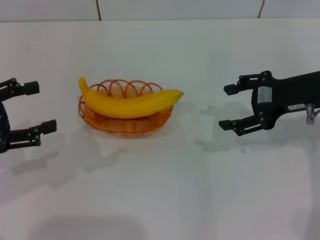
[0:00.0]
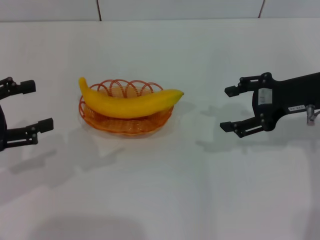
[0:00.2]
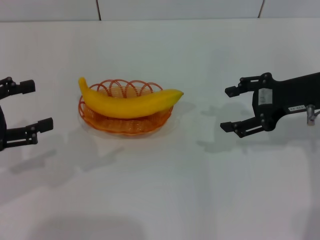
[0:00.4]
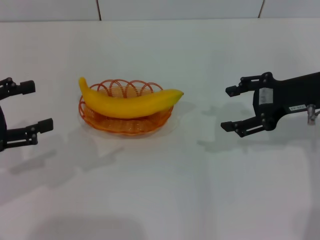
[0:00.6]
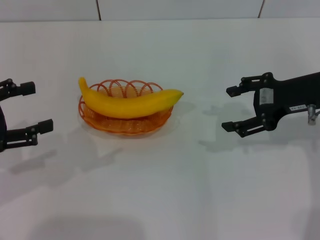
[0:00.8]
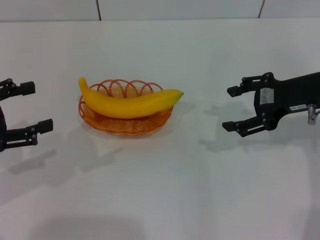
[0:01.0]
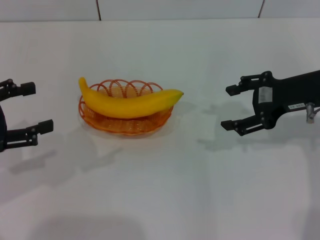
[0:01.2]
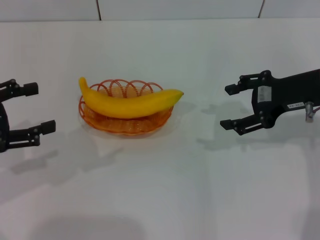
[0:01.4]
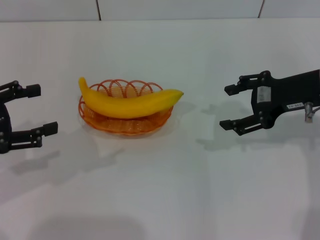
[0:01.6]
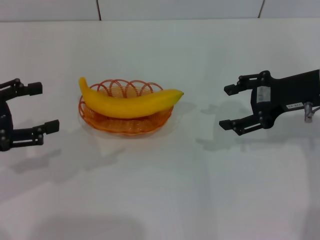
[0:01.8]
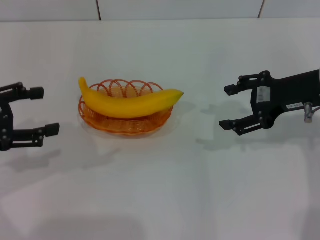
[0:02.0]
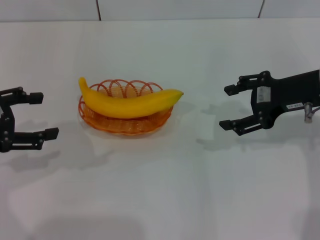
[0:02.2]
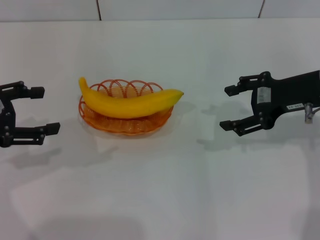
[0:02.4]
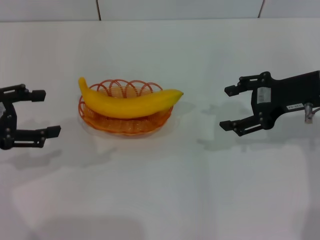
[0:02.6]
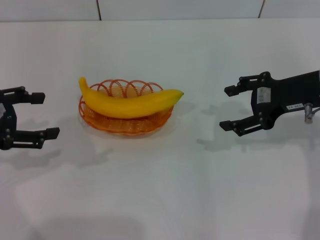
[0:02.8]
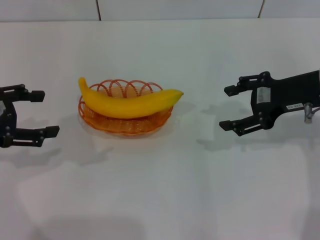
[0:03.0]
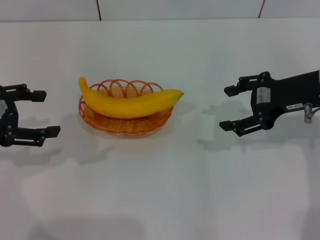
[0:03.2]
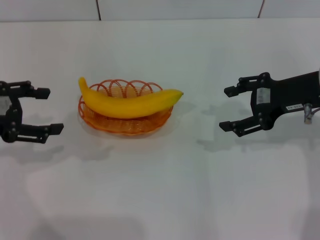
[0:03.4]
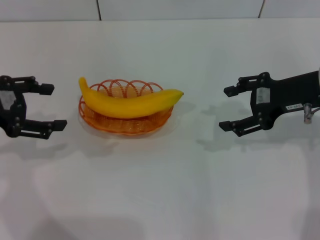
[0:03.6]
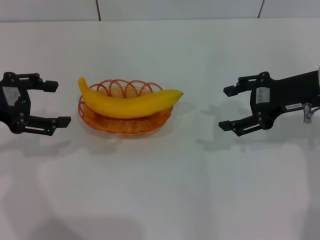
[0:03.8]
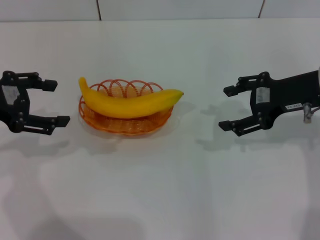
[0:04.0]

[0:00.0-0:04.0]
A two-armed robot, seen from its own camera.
0:00.0 to 0:01.4: Both grippers stay put.
0:01.4 to 0:02.6: The grippers make only small movements.
0:02.6 to 0:04.0: The grippers stay close to where they were, moving slightly.

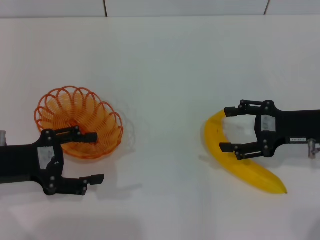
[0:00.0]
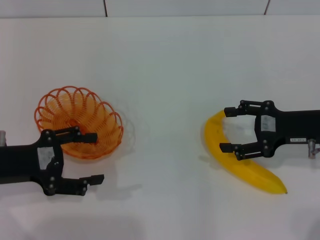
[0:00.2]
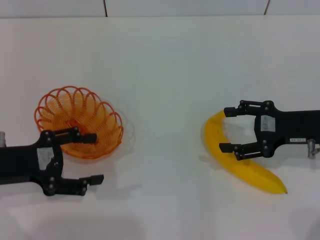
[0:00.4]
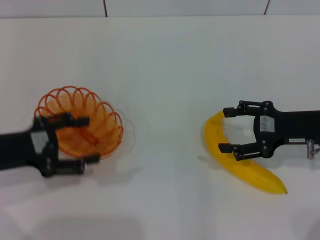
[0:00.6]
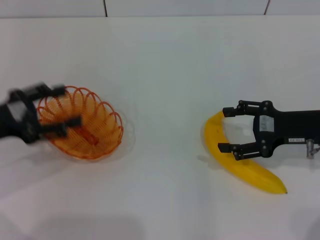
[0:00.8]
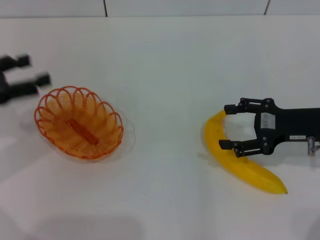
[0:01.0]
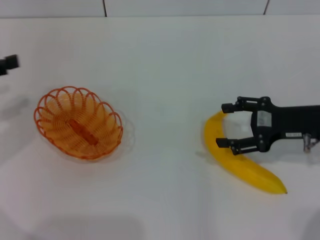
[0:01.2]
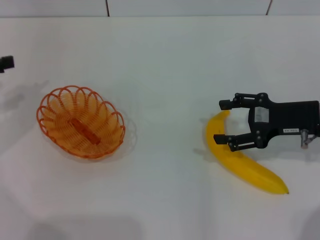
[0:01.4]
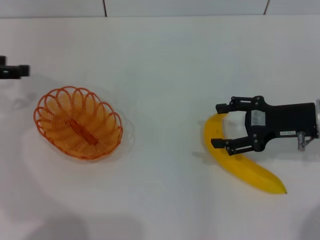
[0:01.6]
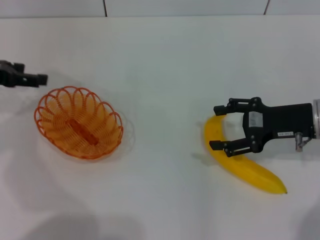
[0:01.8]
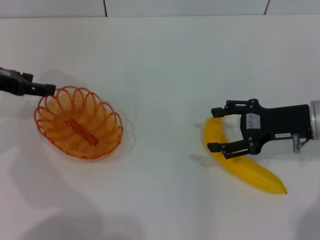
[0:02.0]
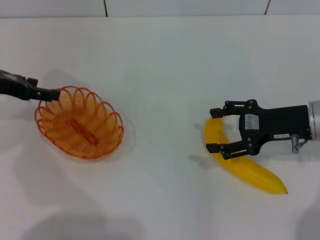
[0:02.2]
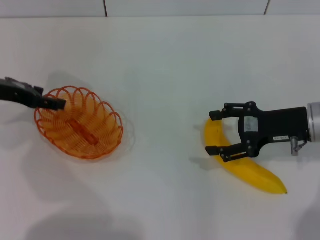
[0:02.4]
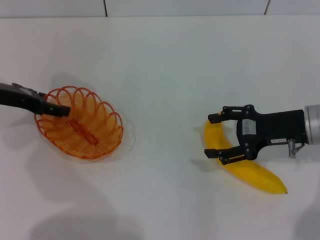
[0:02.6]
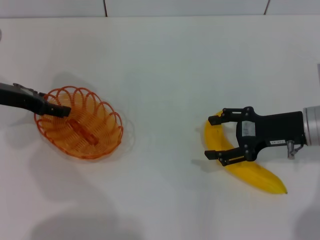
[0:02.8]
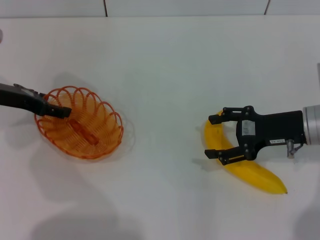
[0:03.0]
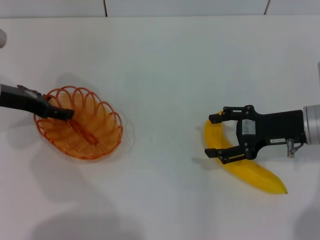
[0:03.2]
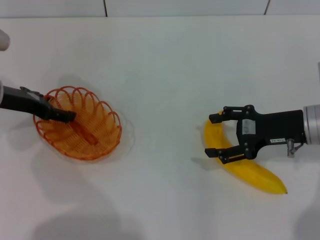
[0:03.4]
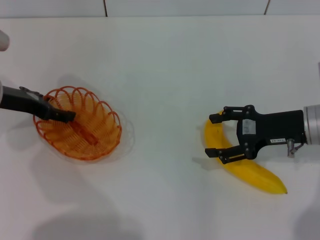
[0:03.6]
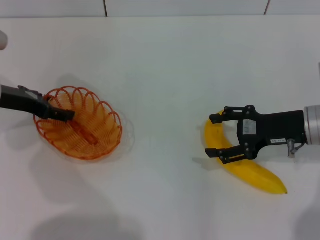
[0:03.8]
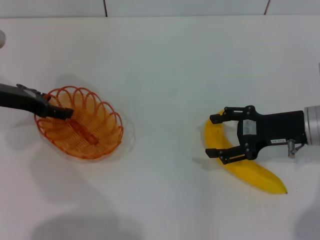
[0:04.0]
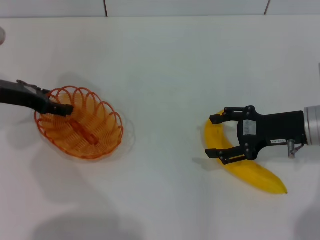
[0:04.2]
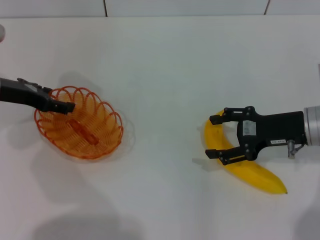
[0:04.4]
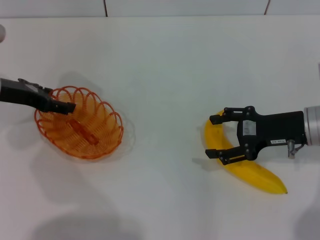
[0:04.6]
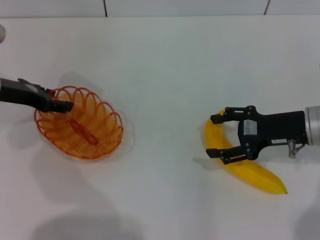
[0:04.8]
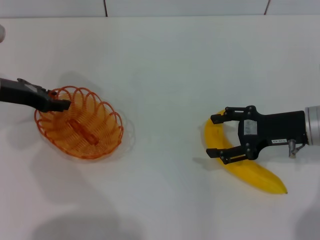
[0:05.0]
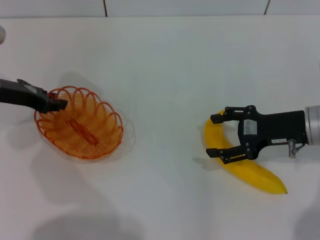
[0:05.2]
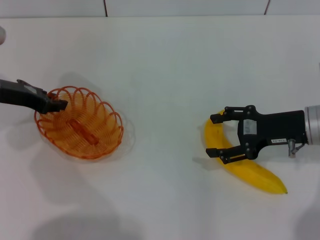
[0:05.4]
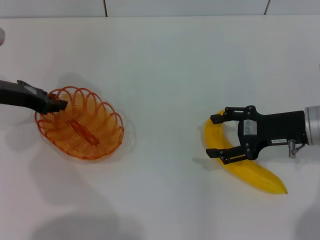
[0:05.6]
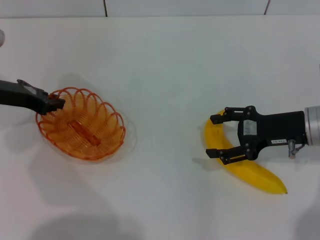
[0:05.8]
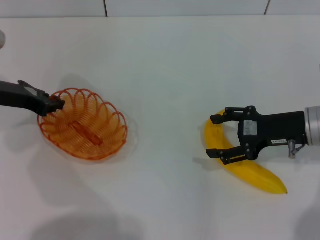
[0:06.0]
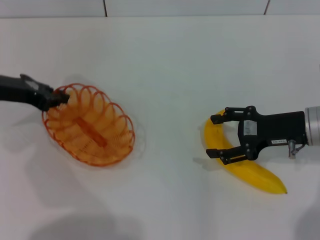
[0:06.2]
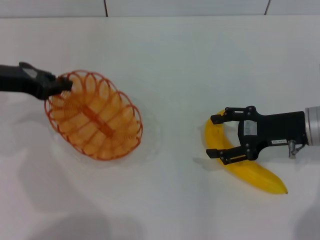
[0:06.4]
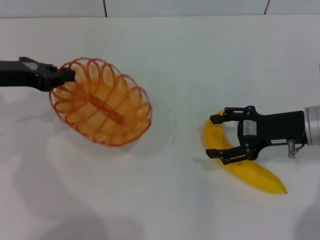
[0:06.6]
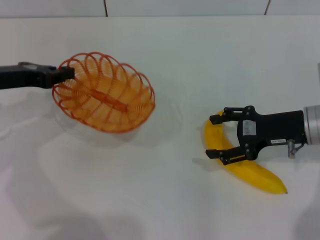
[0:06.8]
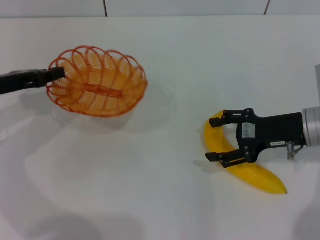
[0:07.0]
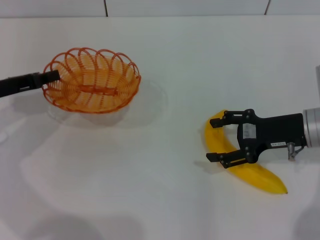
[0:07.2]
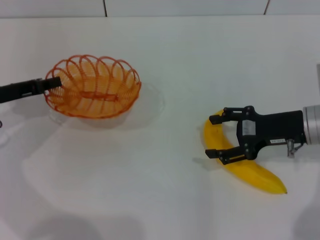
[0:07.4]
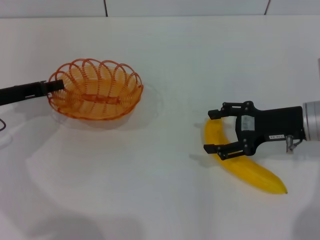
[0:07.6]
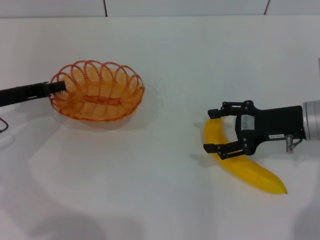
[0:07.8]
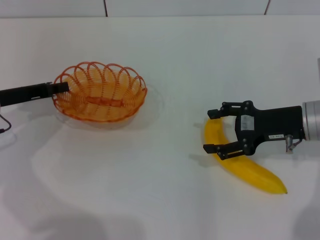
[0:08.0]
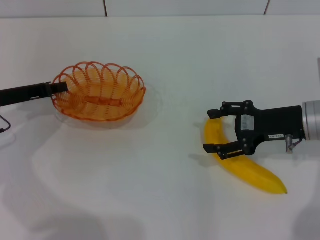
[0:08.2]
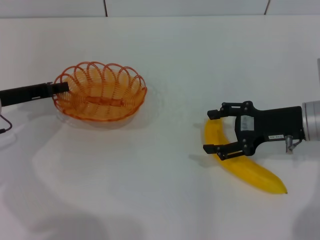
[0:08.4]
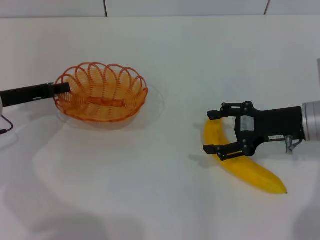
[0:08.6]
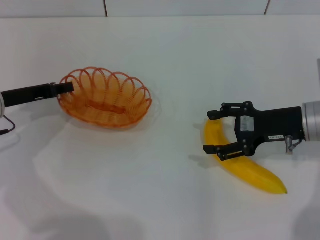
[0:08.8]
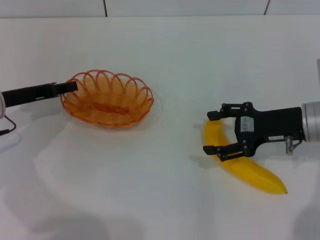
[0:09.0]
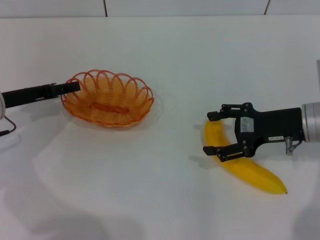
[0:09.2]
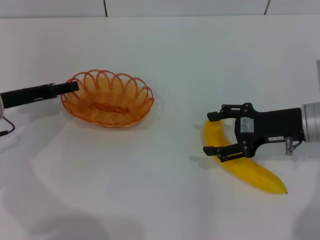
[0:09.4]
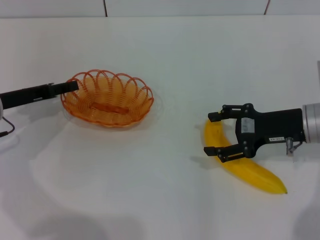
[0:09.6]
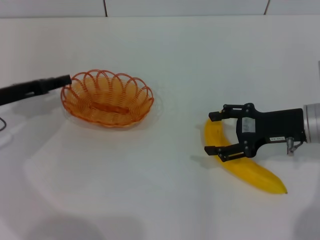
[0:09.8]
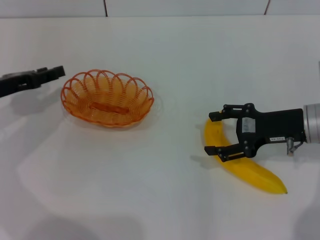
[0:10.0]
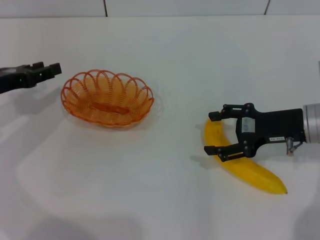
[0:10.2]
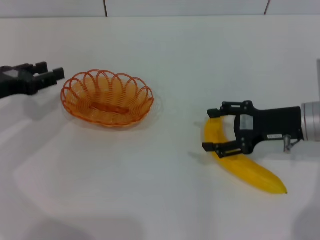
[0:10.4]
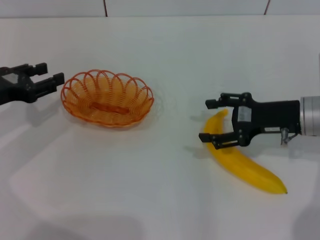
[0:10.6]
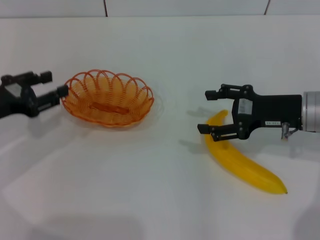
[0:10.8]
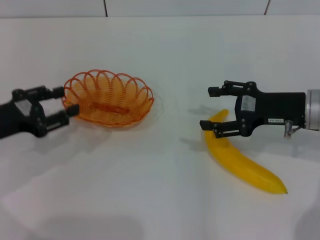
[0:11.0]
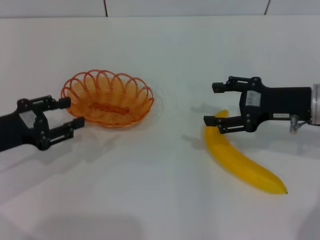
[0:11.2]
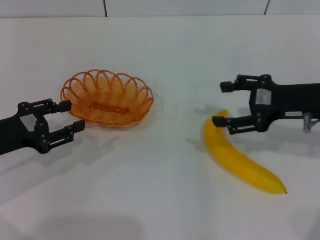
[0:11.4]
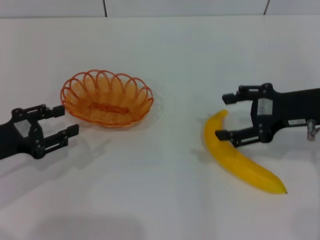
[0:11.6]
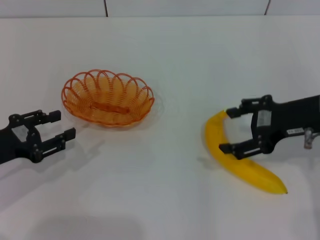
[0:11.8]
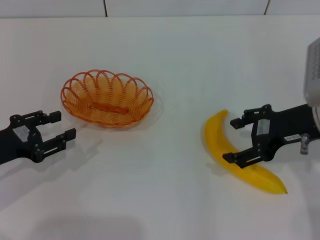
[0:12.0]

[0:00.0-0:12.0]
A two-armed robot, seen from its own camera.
Step, 0:00.0 to 0:07.0: Pick up the basket with the left gripper.
Step, 0:07.2 to 0:10.2: Place the basket in the center of view with the left gripper.
0:00.0 to 0:01.6: The left gripper goes about 15 cm forward, upward and to the left.
0:01.6 to 0:03.0: The left gripper shifts approximately 5 cm to the right.
0:03.0 to 0:04.4: Both grippers stay about where they are.
0:04.4 to 0:06.0: The left gripper closes.
0:07.6 to 0:09.0: There are only small adjustments of the grippers.
0:09.0 to 0:10.4: The left gripper opens.
0:10.4 to 0:12.0: The left gripper is displaced backward by roughly 5 cm. The right gripper goes roughly 5 cm upward.

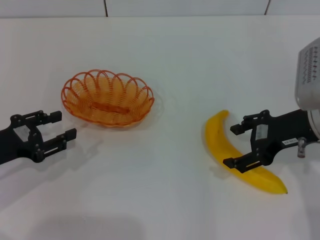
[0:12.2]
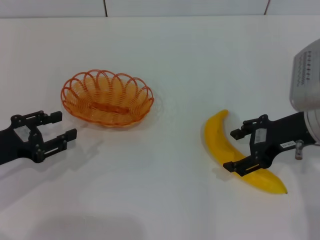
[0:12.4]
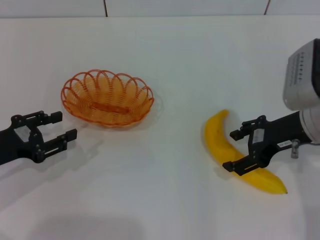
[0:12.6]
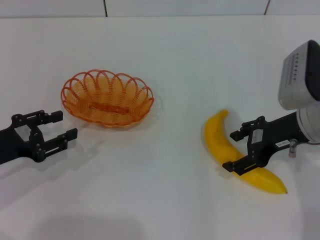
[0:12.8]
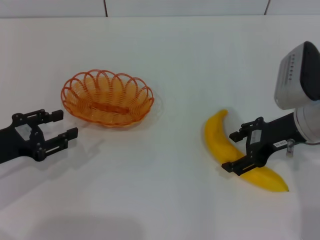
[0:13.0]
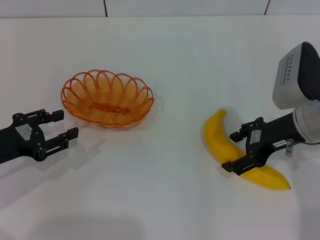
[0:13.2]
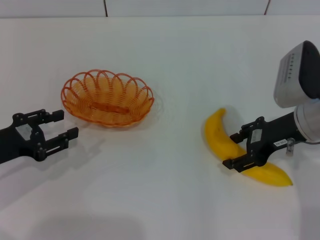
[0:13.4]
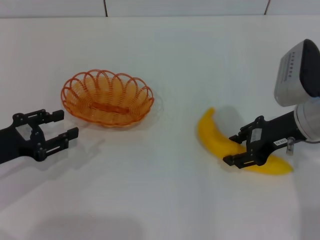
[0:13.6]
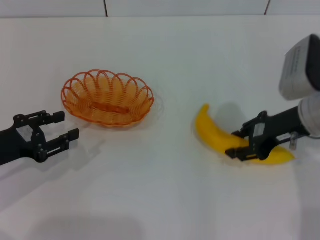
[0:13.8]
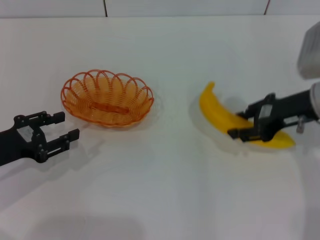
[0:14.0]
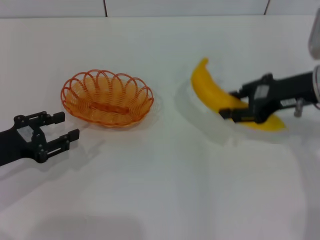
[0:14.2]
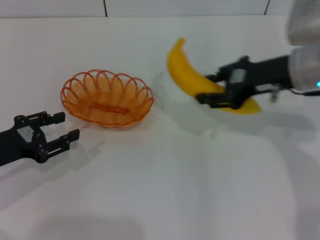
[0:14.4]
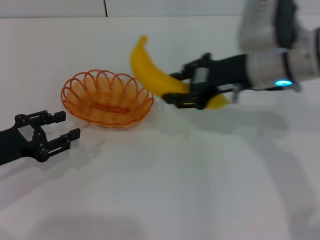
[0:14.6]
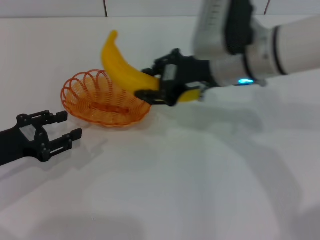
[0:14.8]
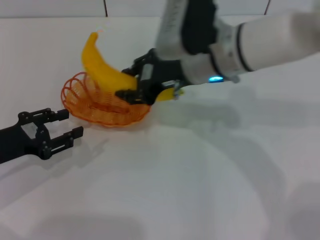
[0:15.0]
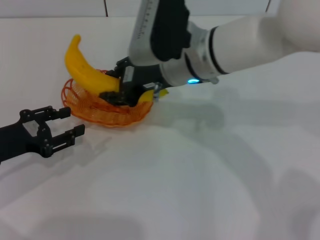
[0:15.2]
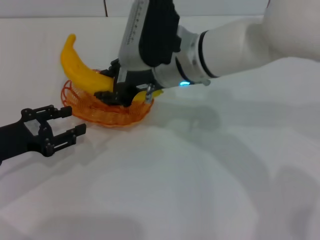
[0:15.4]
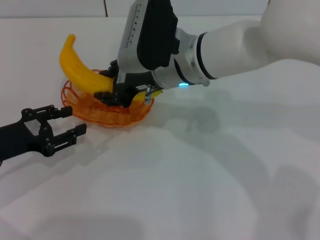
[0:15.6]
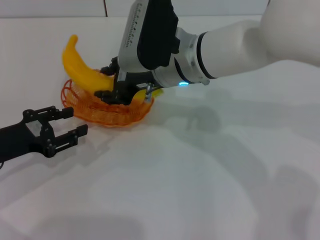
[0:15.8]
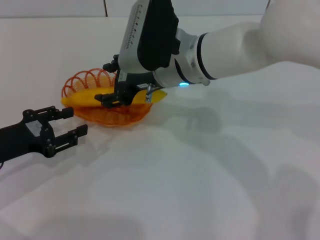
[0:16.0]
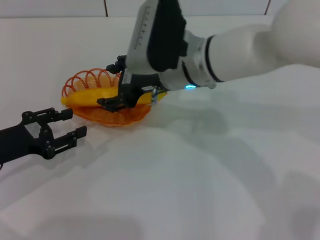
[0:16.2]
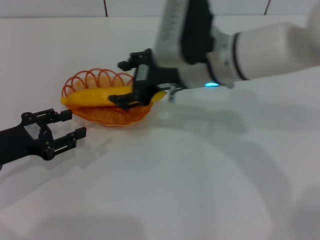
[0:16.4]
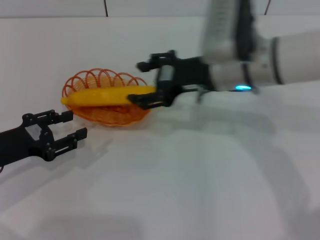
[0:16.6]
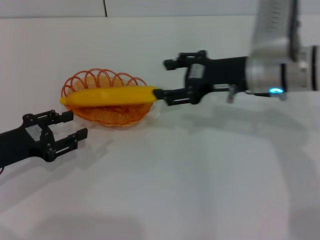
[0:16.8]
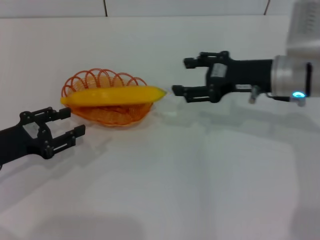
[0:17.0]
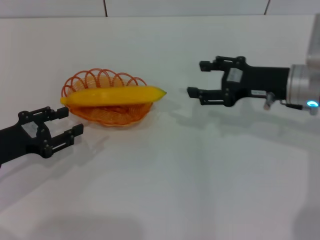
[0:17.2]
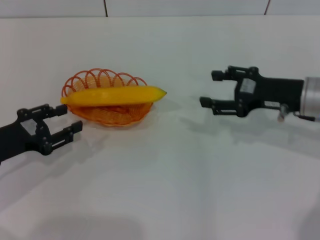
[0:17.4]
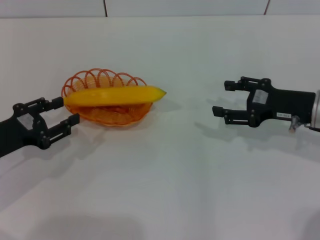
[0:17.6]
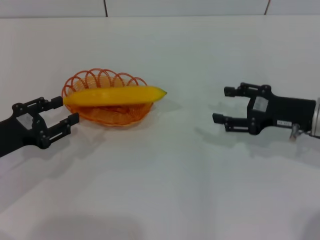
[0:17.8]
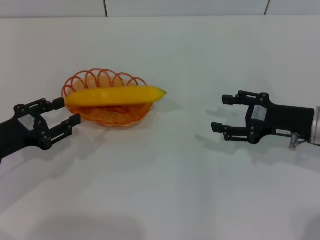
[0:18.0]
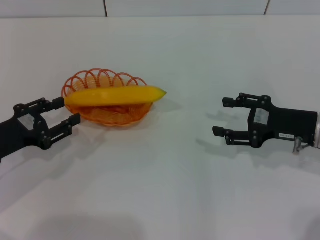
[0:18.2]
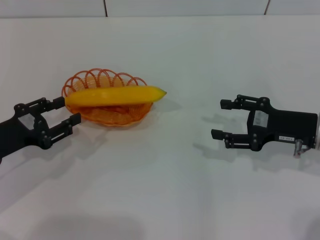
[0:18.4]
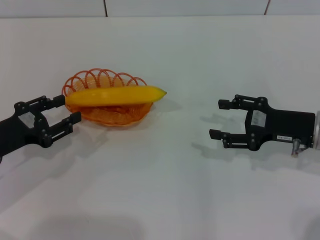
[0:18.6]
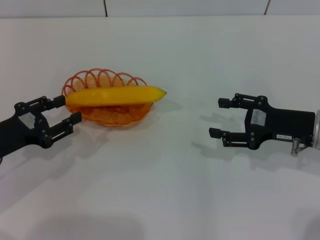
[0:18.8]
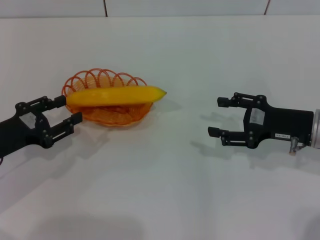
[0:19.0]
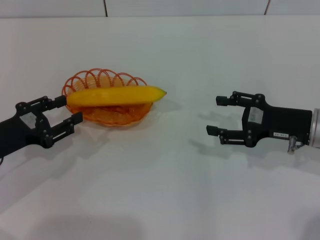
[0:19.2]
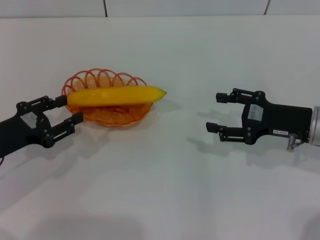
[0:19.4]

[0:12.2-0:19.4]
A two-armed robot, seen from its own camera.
Step, 0:14.4 to 0:17.0: Place the banana into the basket with the right gripper.
0:12.2 to 0:13.6: The right gripper closes its fingers.
0:13.6 to 0:15.0: The right gripper moves to the left, some 15 cm, and closes up.
0:15.0 to 0:16.6: The right gripper opens its fingers.
0:16.6 to 0:18.0: The right gripper moves to the right, downward and backward, about 20 cm.
0:18.0 to 0:19.4: The two grippers keep their place.
